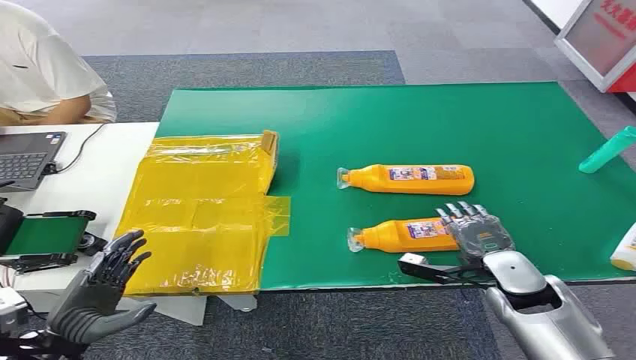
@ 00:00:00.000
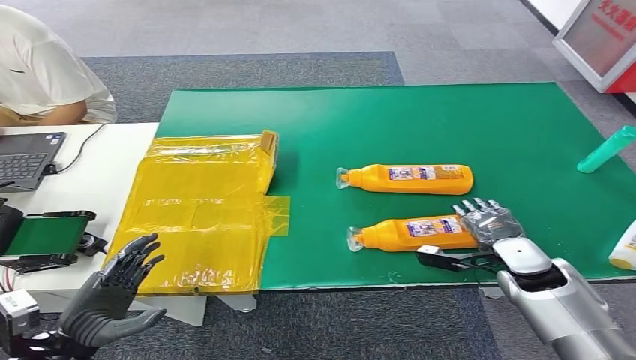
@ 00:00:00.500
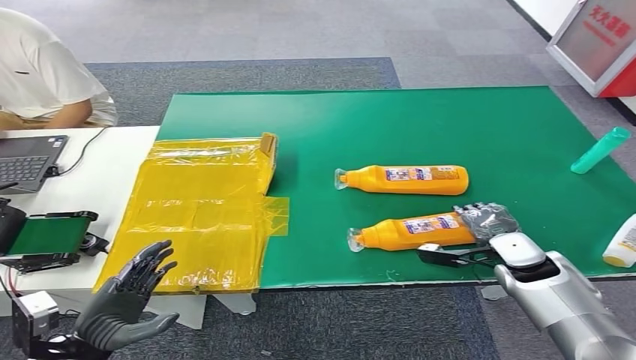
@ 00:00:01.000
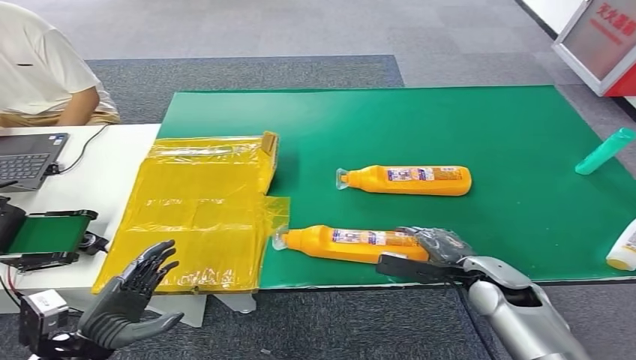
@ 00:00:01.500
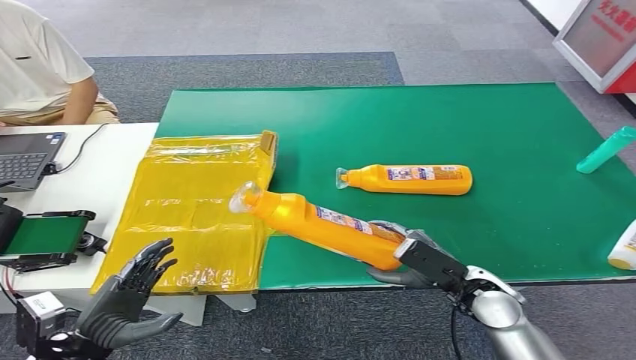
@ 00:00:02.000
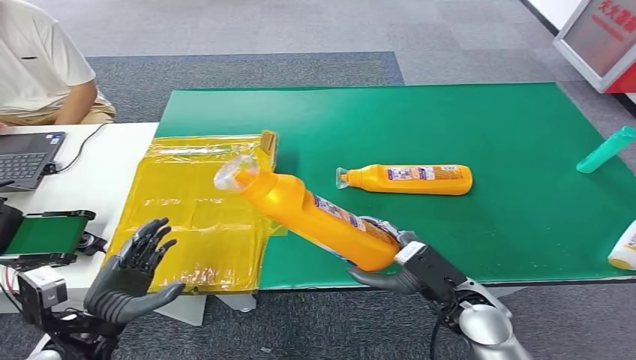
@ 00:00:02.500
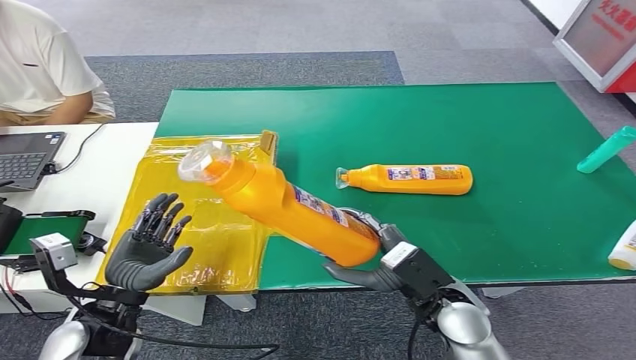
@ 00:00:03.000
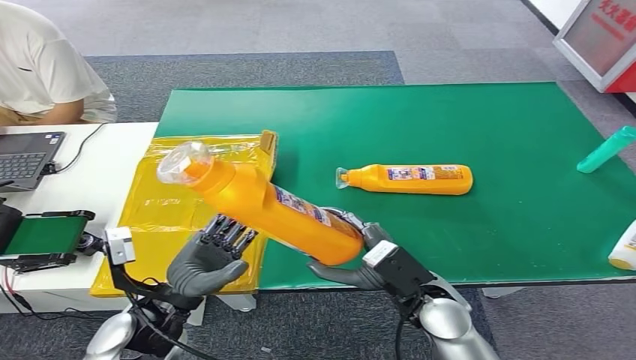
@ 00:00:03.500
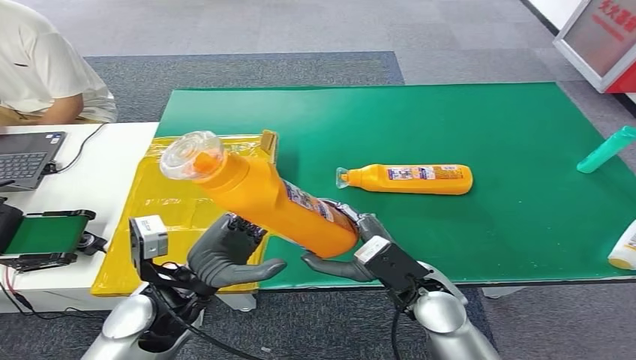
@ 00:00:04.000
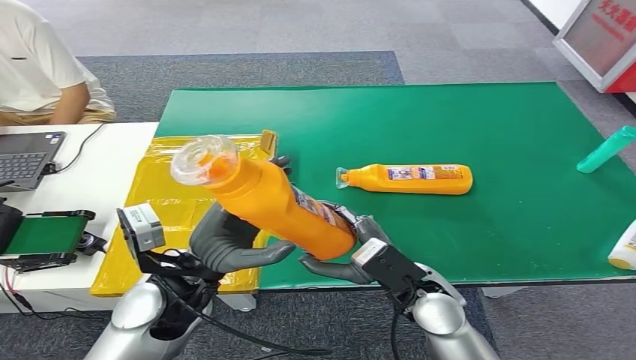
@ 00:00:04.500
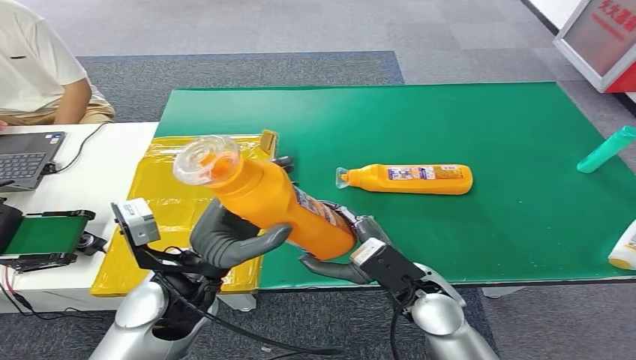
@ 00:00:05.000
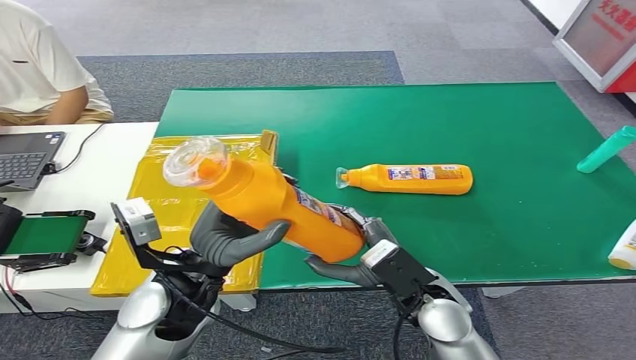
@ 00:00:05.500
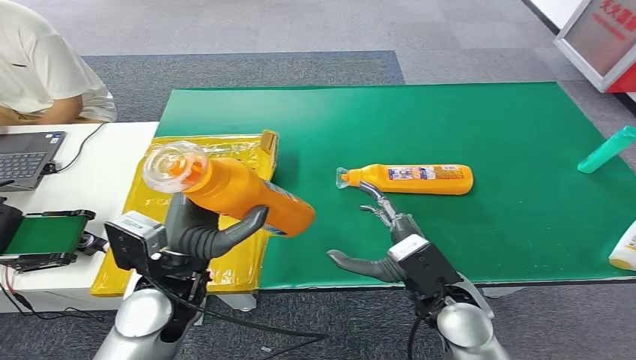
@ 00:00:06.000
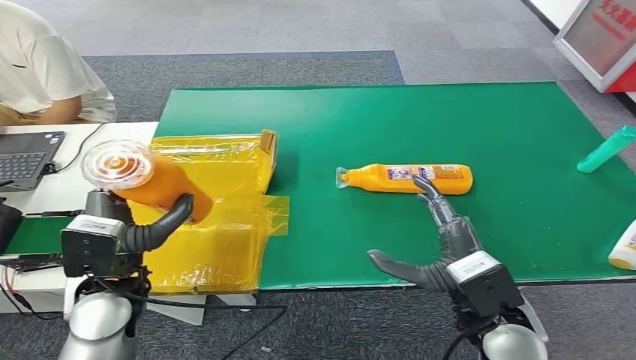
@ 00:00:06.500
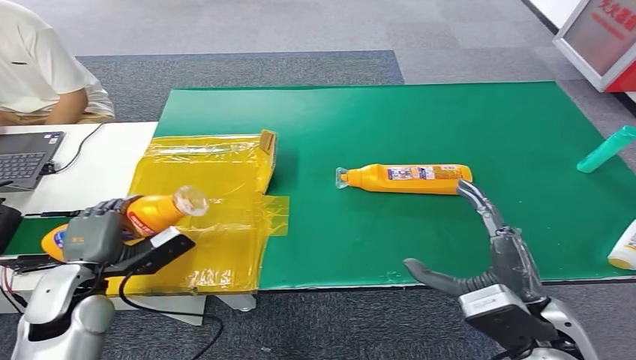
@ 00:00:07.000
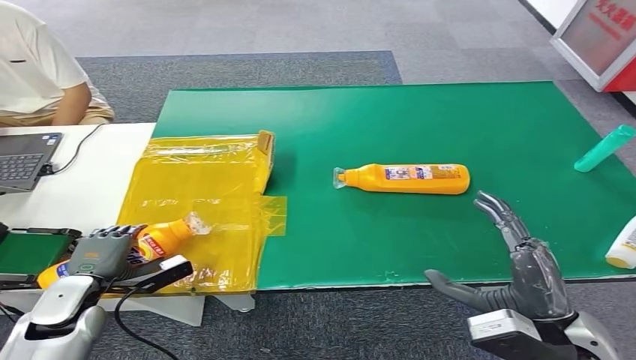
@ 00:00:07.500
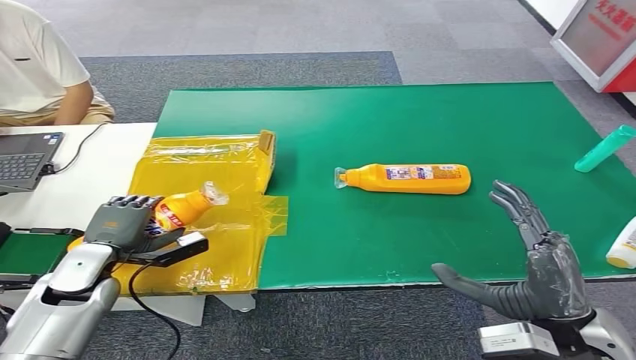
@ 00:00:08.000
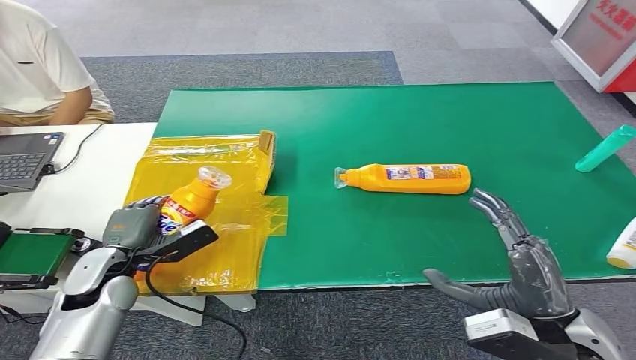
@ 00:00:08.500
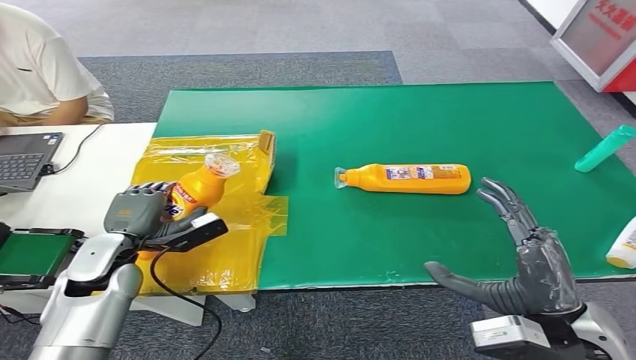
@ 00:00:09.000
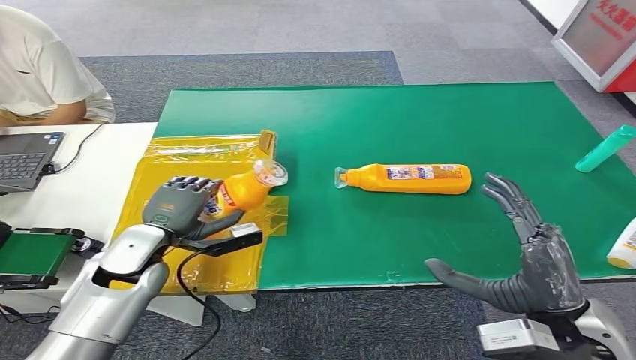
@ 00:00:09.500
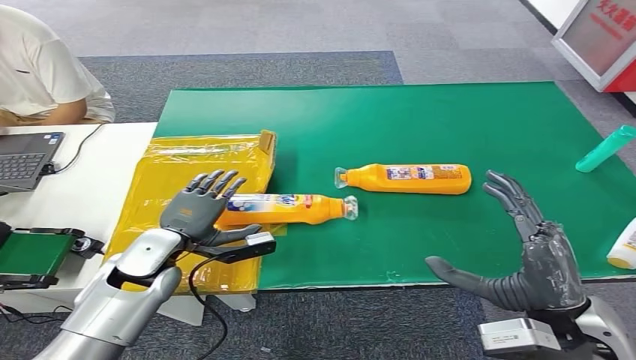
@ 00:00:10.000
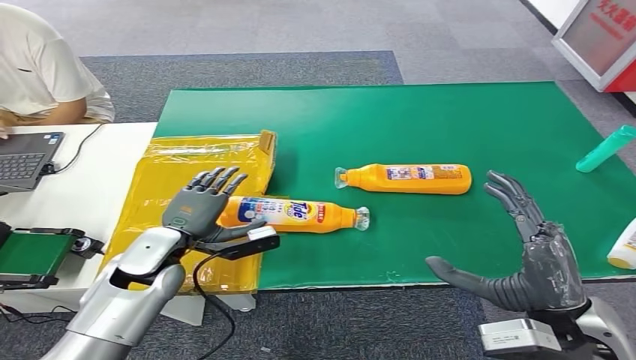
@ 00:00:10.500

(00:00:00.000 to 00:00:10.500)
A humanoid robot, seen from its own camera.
Step, 00:00:00.000 - 00:00:02.000: Pick up the bottle from the table.
Step, 00:00:04.000 - 00:00:10.500: Turn the bottle to the front side.
00:00:02.000 - 00:00:04.000: The right hand goes about 10 cm to the left. Meanwhile the left hand heads to the right, forward and upward, covering roughly 20 cm.
00:00:08.500 - 00:00:10.500: The left hand shifts approximately 10 cm to the right.
